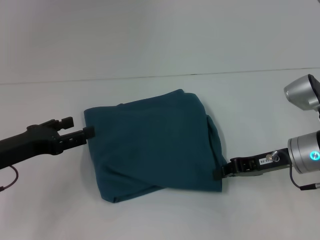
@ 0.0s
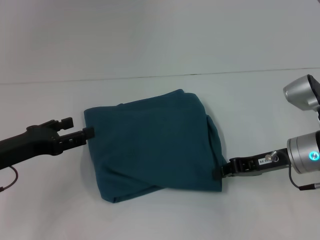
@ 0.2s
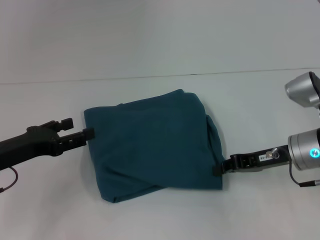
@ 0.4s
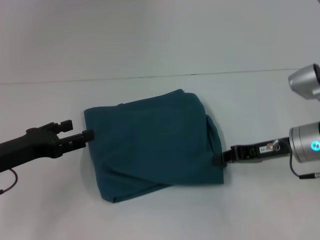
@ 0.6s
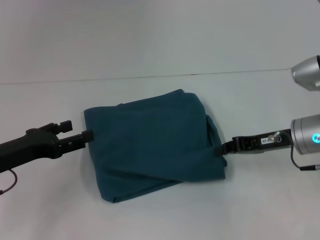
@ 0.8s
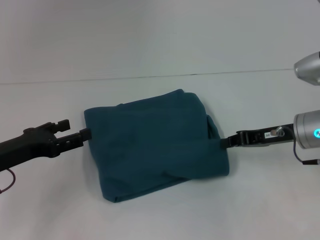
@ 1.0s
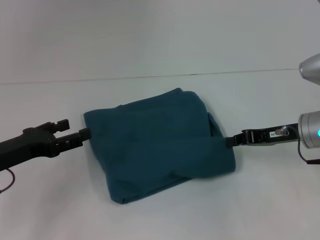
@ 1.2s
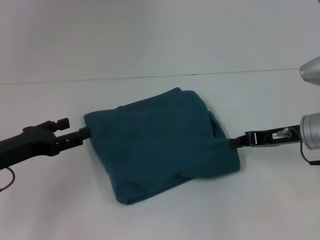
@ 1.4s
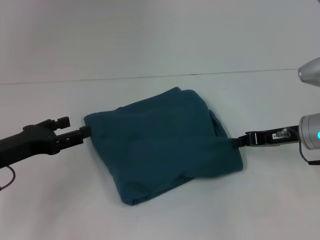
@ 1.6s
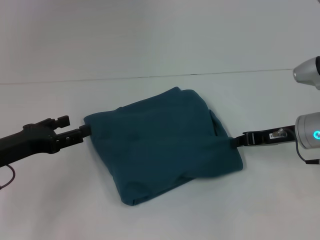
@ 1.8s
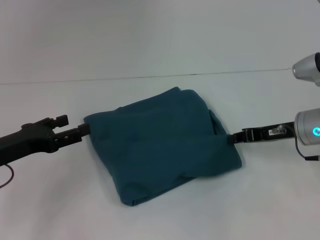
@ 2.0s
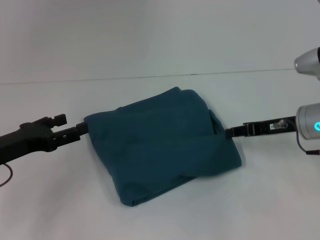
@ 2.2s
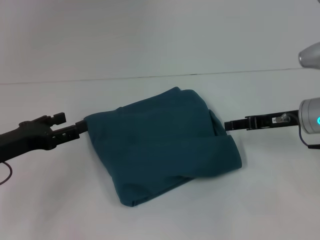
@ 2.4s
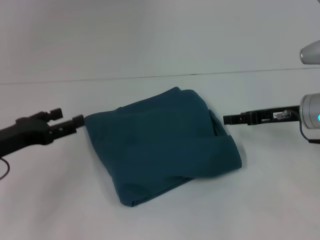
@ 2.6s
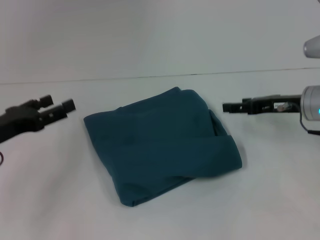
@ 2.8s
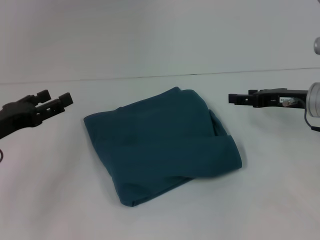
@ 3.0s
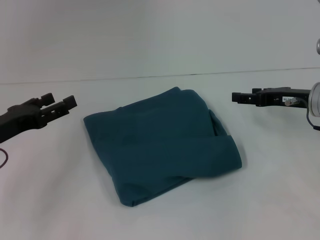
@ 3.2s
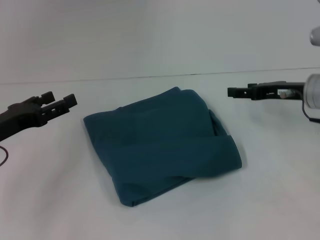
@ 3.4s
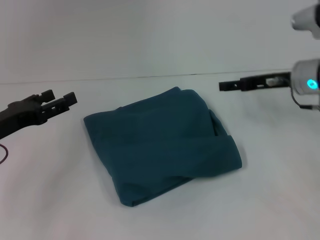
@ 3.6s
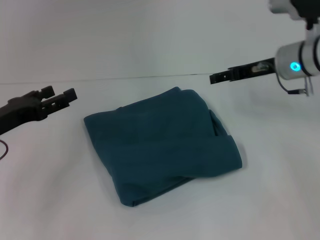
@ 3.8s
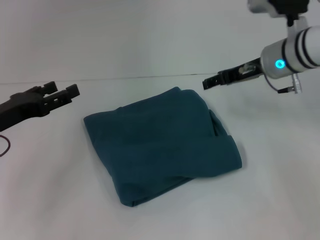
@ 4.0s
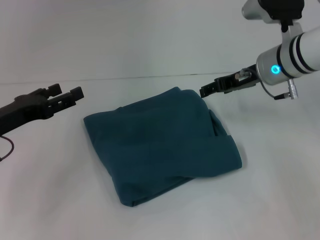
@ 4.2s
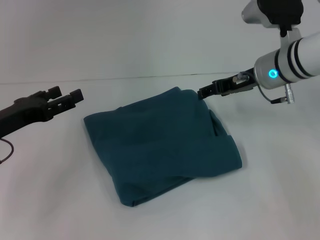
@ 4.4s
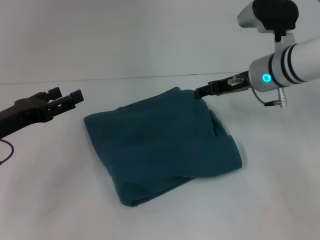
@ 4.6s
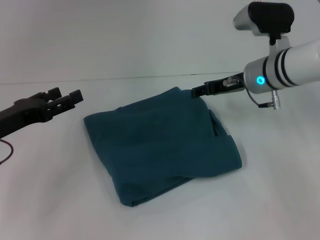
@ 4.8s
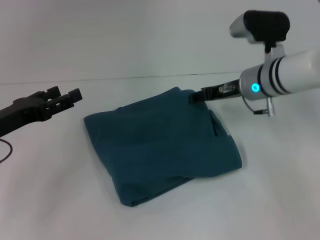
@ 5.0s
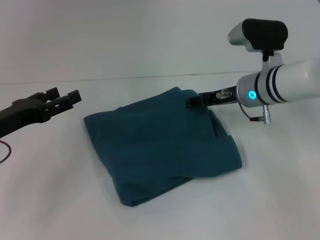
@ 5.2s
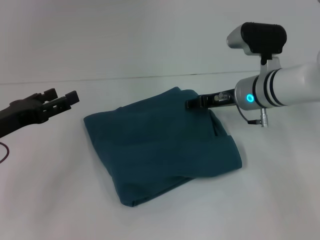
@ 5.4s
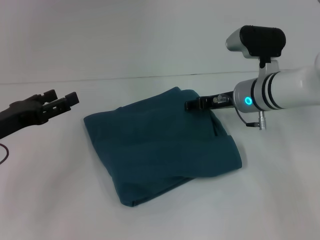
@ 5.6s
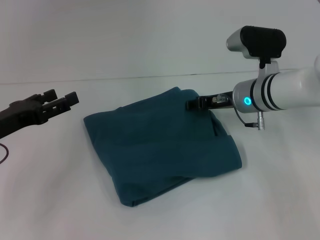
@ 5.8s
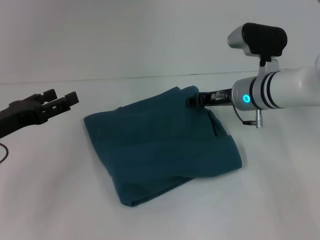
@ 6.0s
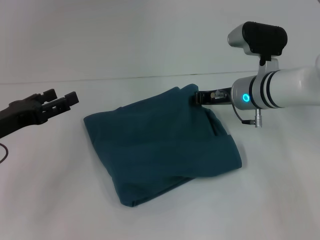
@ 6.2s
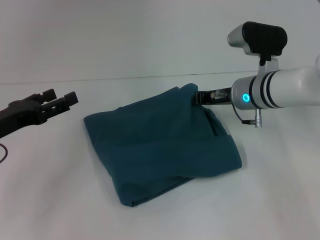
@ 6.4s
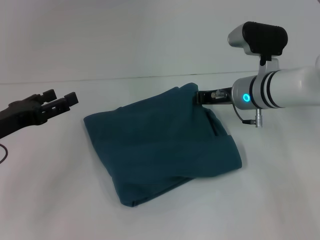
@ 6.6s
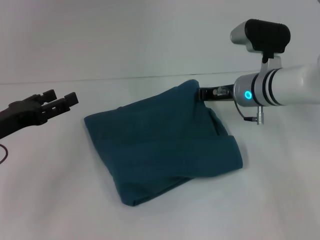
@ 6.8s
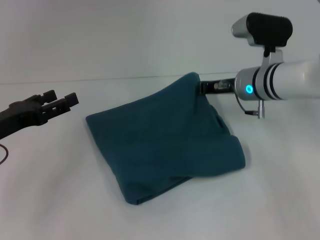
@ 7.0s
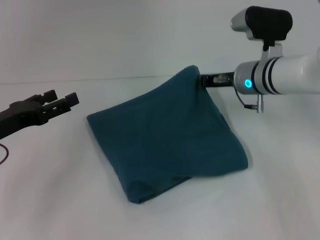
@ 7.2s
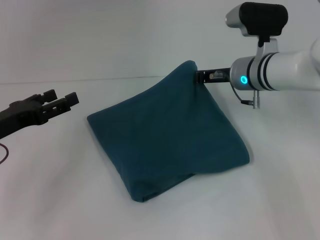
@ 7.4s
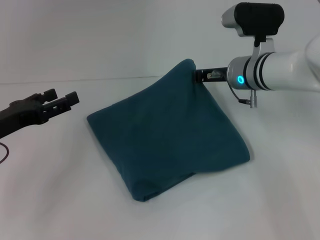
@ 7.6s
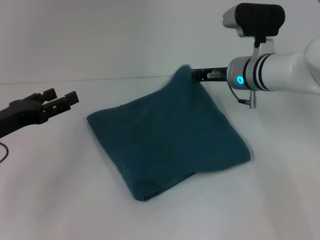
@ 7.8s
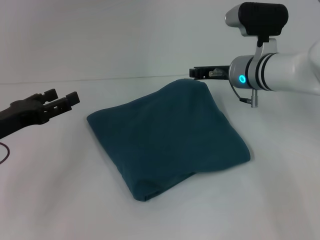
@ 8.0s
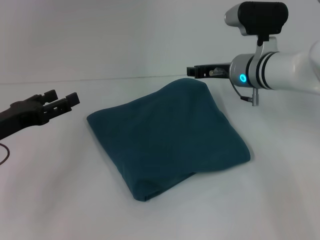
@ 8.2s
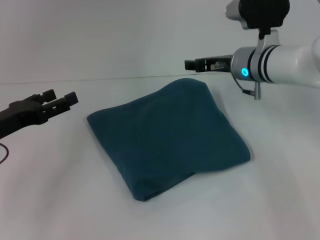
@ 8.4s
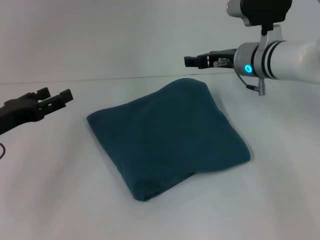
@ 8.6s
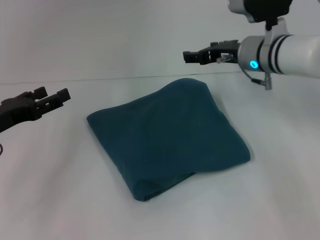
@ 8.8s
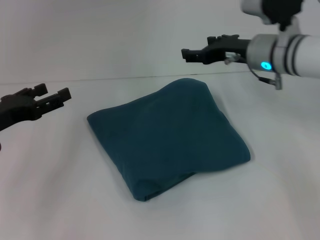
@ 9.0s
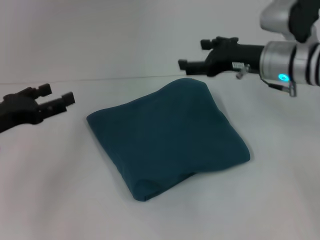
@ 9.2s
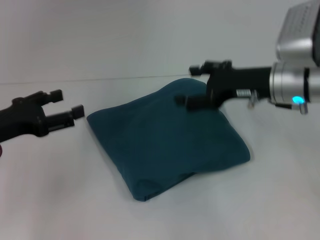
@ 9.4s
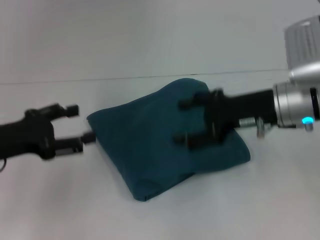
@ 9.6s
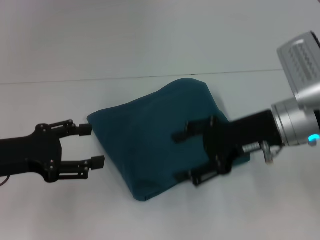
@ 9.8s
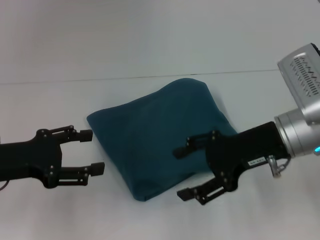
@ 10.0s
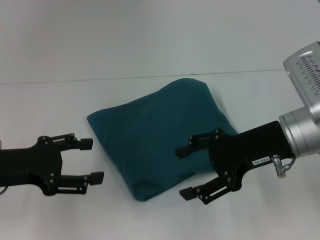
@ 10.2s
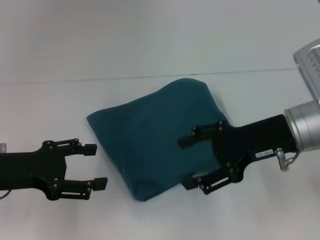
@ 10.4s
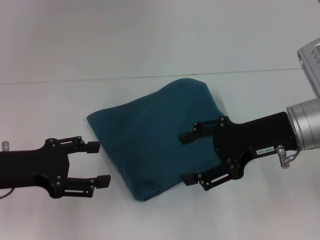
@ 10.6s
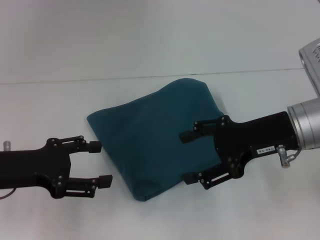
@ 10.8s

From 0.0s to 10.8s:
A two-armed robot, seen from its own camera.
From 0.0s to 1.6s: The grippers stay close to where they were, moving slightly.
From 1.6s to 3.0s: The right gripper opens up.
From 3.0s to 4.6s: The right gripper goes about 10 cm to the left and forward.
From 4.6s to 6.2s: The right gripper closes up.
From 6.2s to 7.8s: The grippers stay close to where they were, moving slightly.
From 7.8s to 9.2s: The right gripper moves roughly 5 cm, and opens up.
From 9.2s to 10.8s: The right gripper shifts about 10 cm backward.

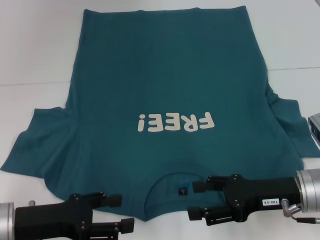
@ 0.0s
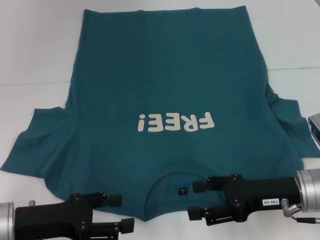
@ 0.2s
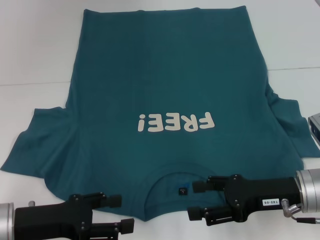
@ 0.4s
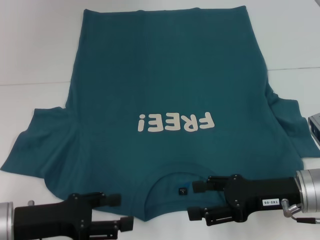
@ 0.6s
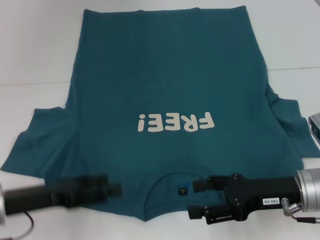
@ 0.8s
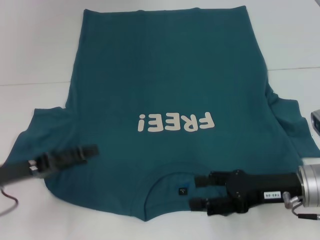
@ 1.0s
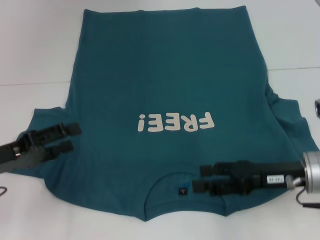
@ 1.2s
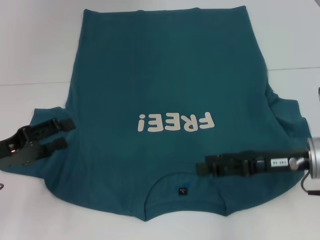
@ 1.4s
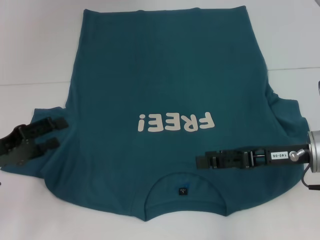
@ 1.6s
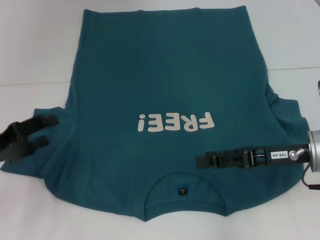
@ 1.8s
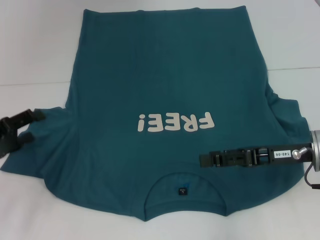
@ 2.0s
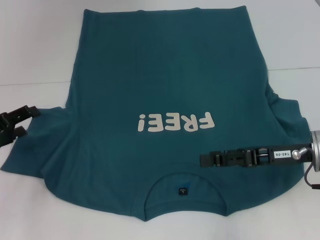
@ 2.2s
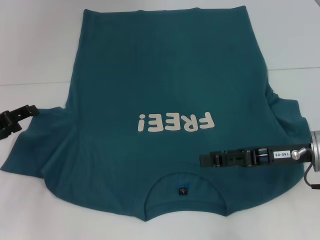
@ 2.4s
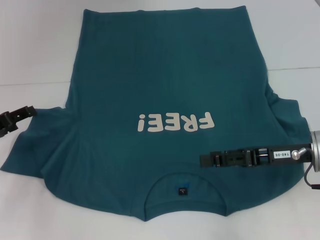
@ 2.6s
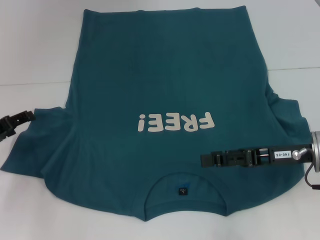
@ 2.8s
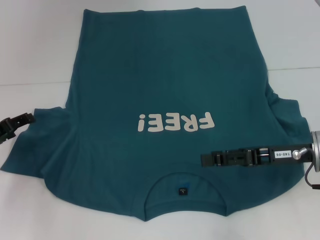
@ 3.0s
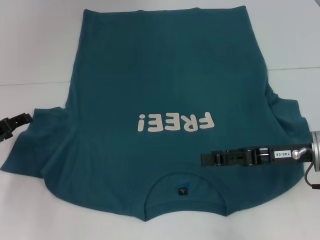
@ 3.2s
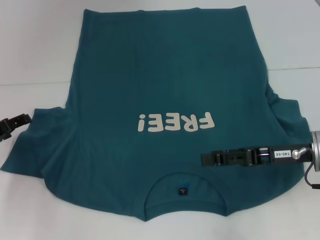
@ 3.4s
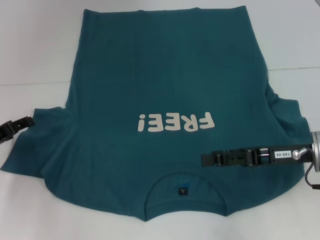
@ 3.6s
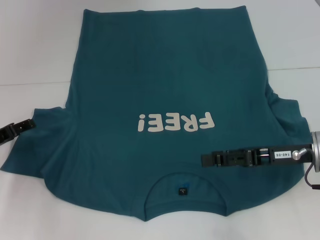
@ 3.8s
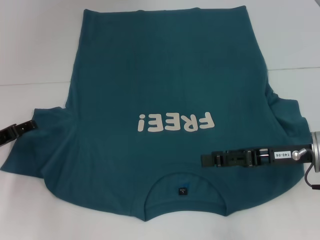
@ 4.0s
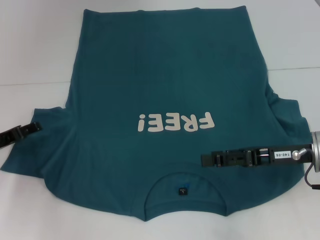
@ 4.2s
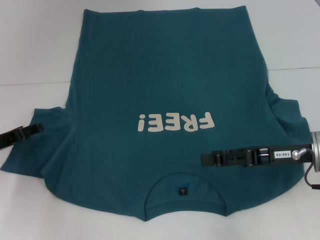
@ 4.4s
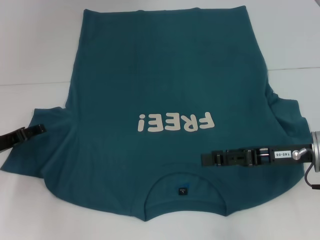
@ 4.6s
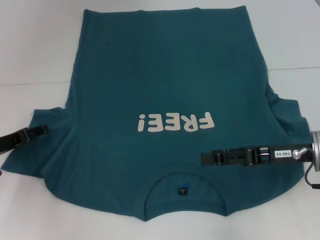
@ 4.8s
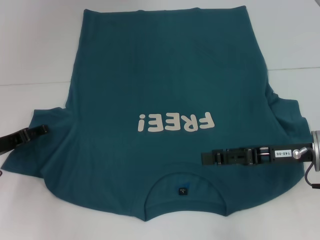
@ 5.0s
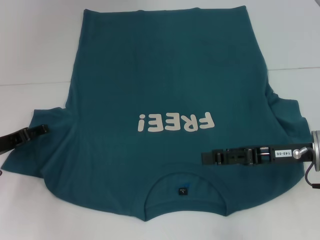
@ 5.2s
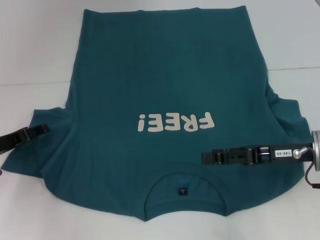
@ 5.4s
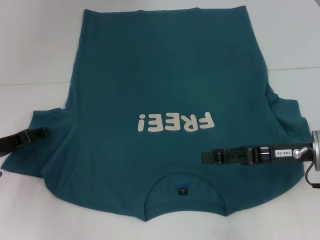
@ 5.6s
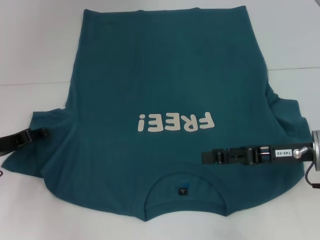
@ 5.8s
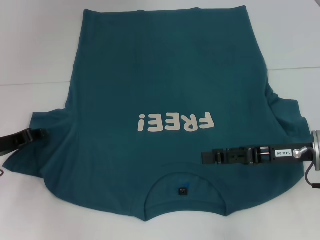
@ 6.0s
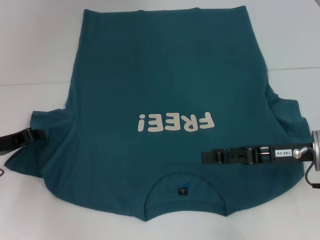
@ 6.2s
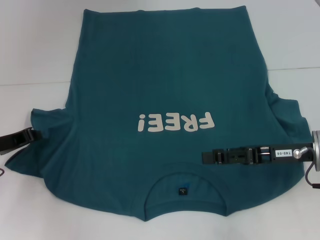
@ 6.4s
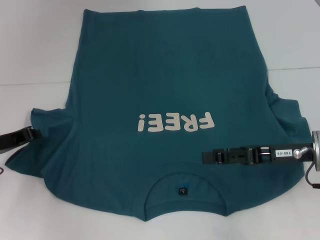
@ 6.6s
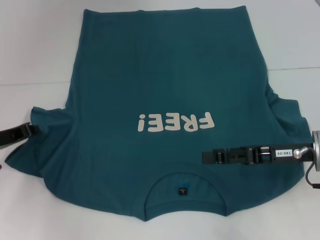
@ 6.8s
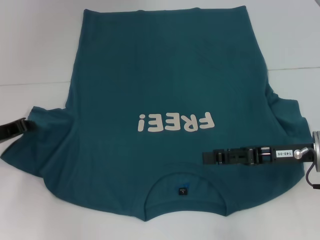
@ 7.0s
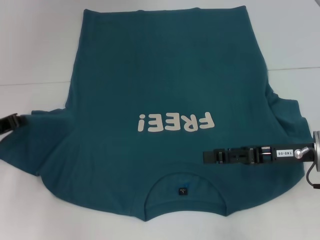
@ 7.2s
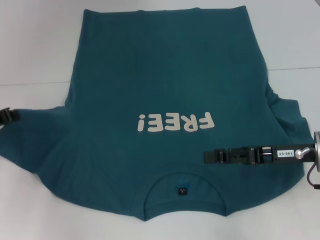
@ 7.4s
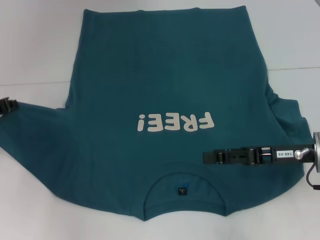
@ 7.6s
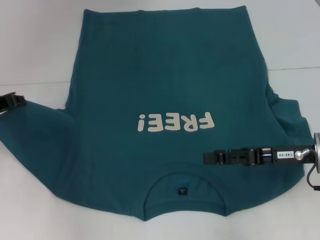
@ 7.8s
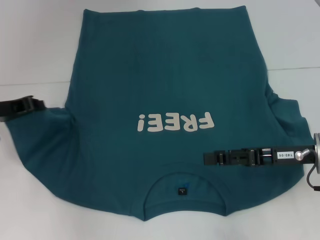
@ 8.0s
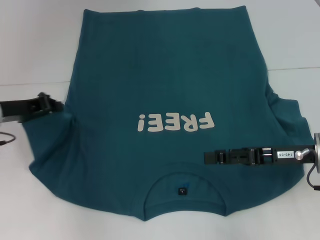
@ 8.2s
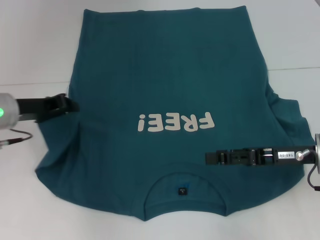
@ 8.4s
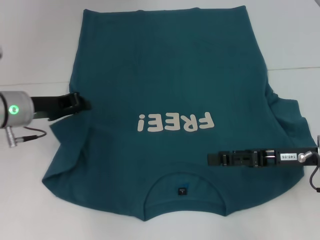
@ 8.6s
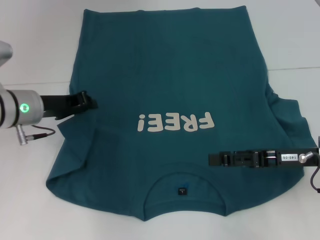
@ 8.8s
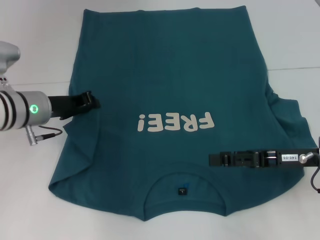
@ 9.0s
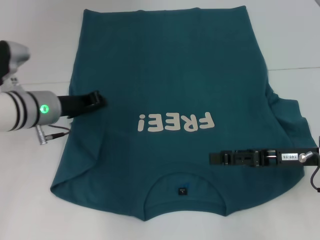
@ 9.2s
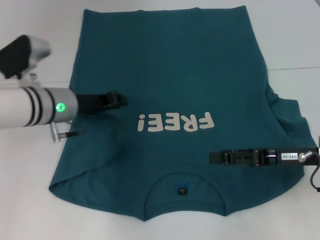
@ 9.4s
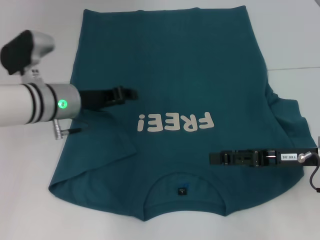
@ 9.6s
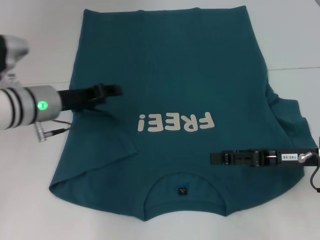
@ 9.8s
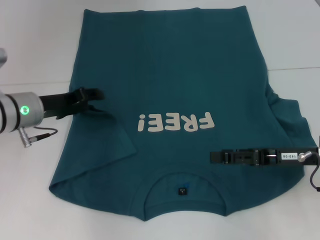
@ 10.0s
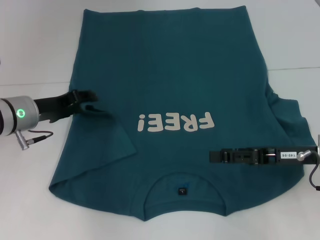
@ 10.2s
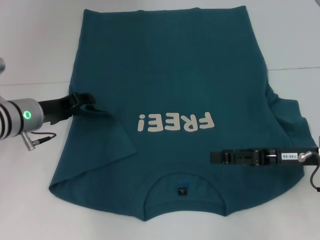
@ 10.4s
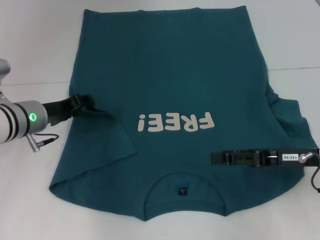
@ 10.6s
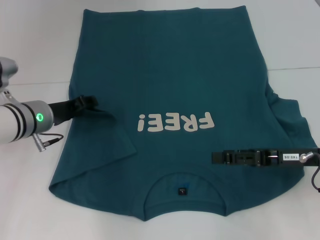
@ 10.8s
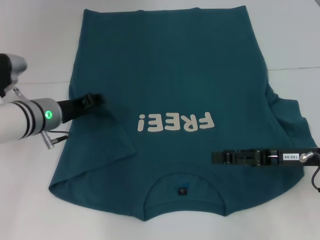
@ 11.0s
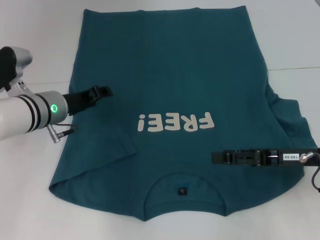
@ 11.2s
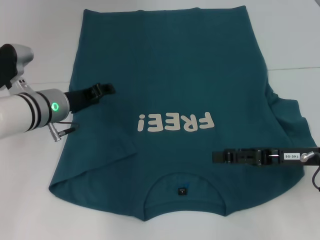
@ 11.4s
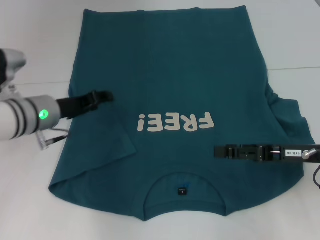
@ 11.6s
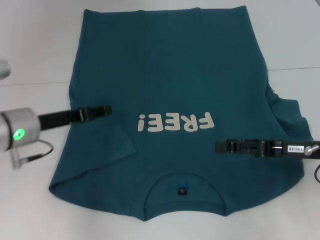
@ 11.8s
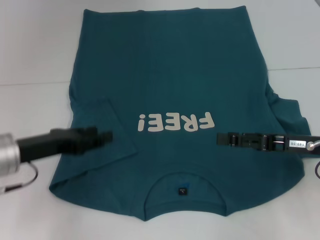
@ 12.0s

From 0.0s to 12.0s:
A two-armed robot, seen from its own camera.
Step, from 0.0s to 9.4s: Fold the bottom left sleeve with your left hand.
From 0.0s to 1.6s: The right gripper changes place by about 5 cm; the left gripper shifts about 5 cm to the left.
From 1.6s to 3.0s: The left gripper is displaced forward by some 5 cm.
From 3.0s to 6.0s: The grippers make only small movements.
From 6.0s to 7.6s: The left gripper changes place by about 5 cm, and closes its fingers.
From 7.6s to 9.0s: The left gripper moves to the right, approximately 10 cm.
From 9.0s to 10.4s: The left gripper opens its fingers.
From 10.4s to 12.0s: The left gripper goes some 10 cm backward.
